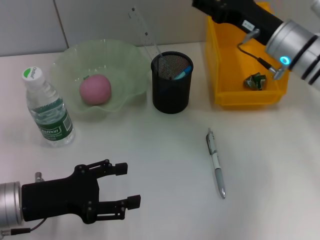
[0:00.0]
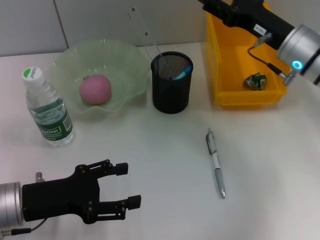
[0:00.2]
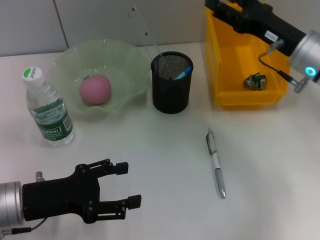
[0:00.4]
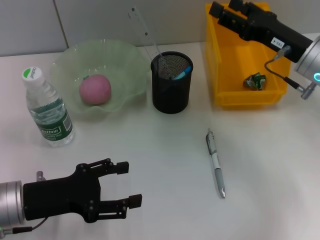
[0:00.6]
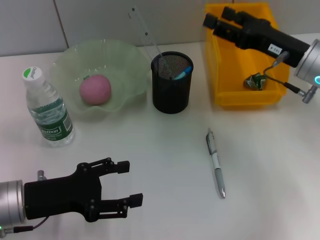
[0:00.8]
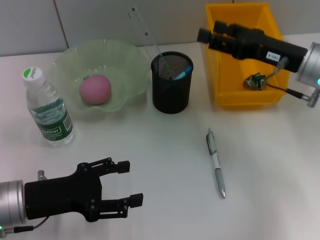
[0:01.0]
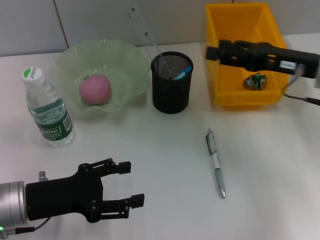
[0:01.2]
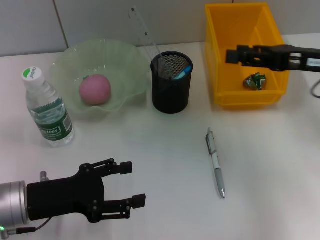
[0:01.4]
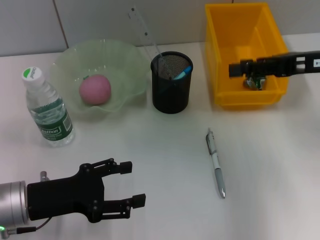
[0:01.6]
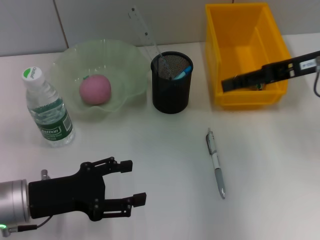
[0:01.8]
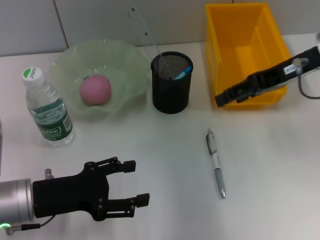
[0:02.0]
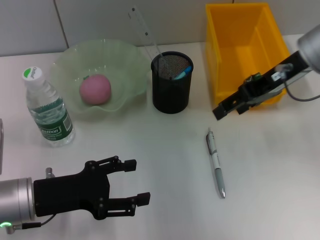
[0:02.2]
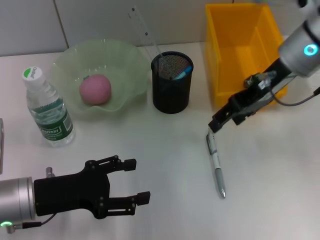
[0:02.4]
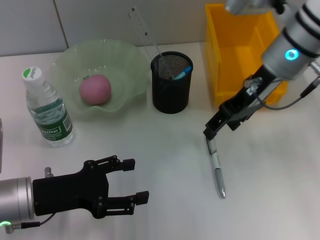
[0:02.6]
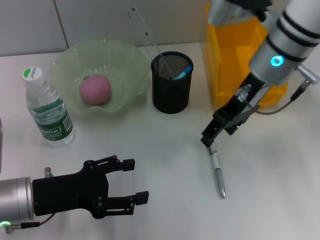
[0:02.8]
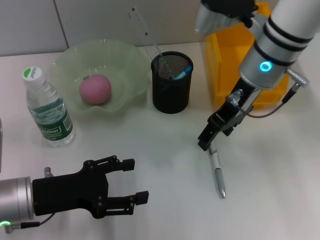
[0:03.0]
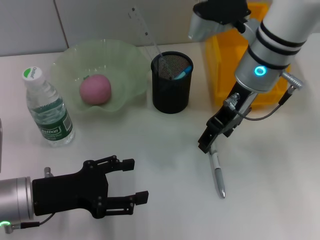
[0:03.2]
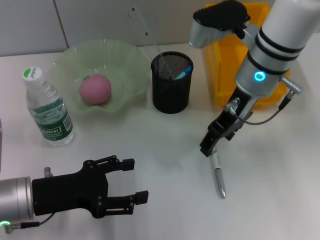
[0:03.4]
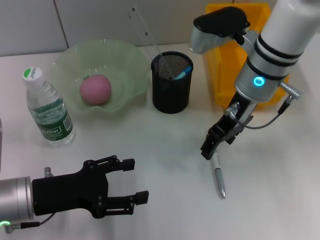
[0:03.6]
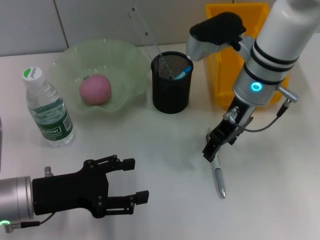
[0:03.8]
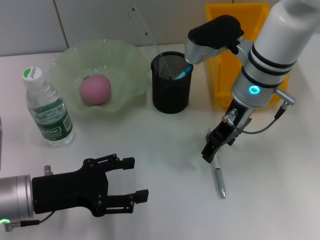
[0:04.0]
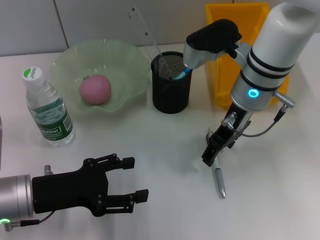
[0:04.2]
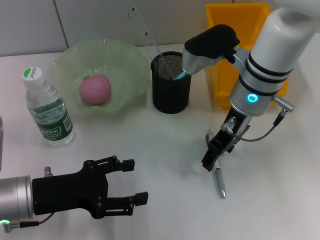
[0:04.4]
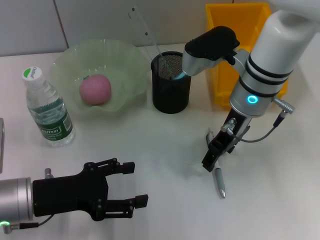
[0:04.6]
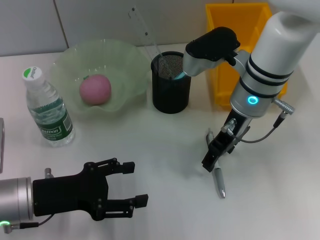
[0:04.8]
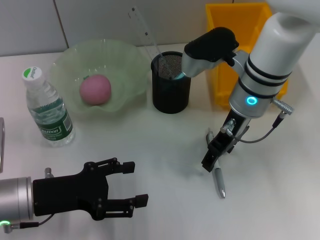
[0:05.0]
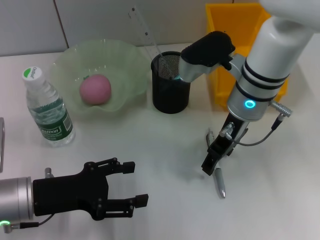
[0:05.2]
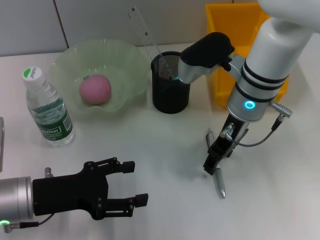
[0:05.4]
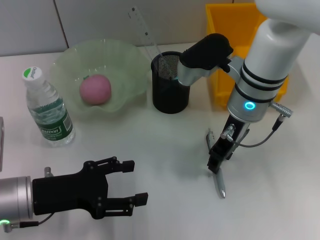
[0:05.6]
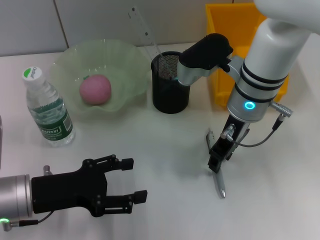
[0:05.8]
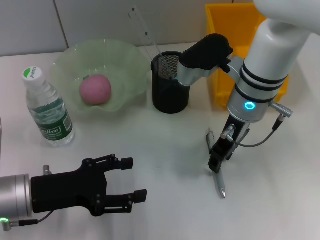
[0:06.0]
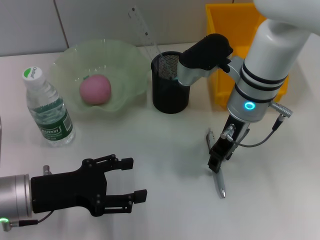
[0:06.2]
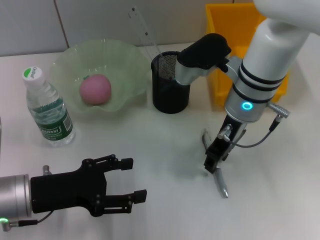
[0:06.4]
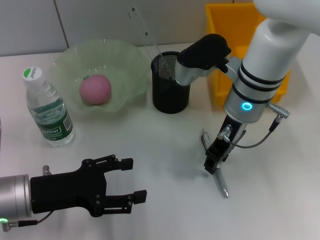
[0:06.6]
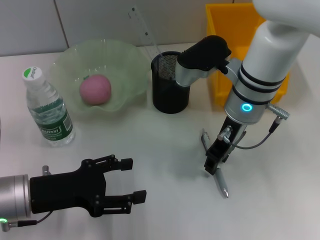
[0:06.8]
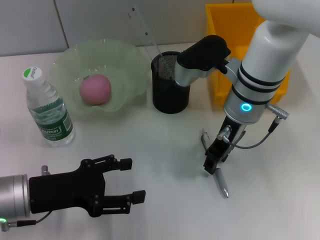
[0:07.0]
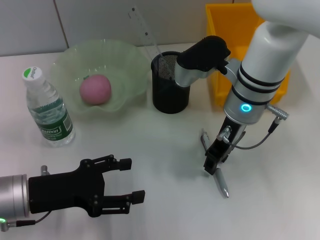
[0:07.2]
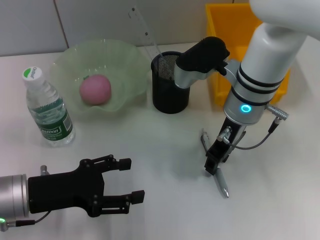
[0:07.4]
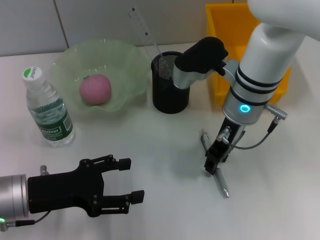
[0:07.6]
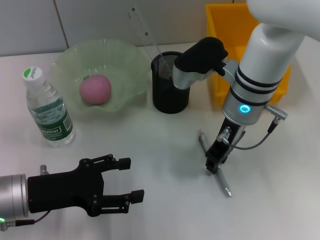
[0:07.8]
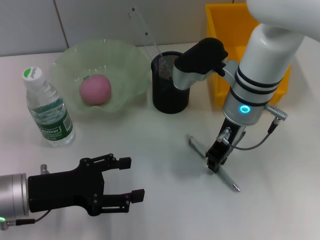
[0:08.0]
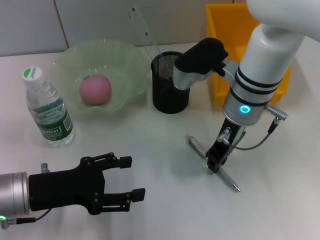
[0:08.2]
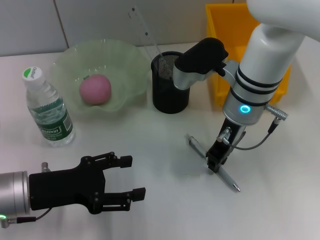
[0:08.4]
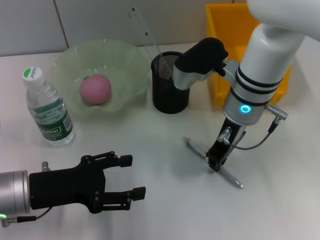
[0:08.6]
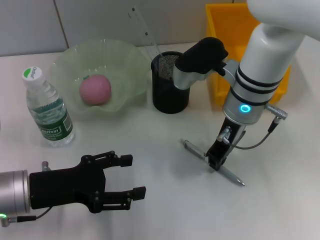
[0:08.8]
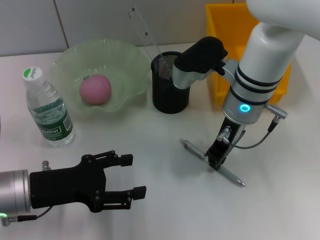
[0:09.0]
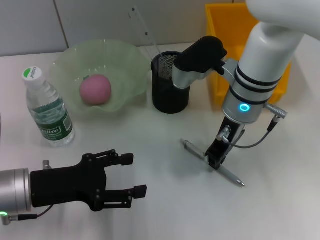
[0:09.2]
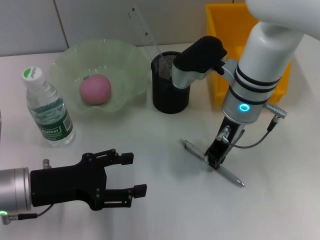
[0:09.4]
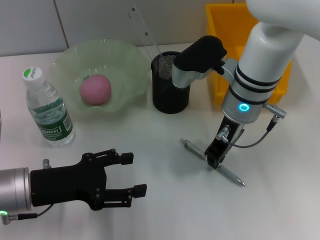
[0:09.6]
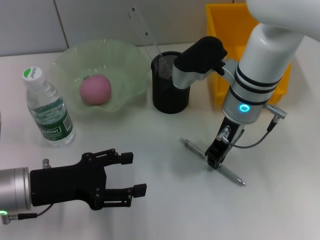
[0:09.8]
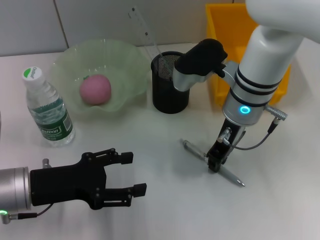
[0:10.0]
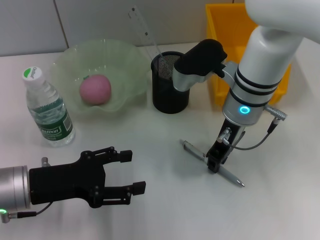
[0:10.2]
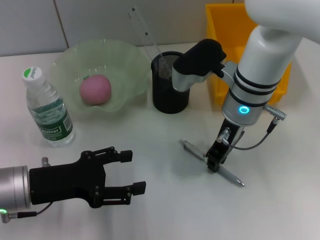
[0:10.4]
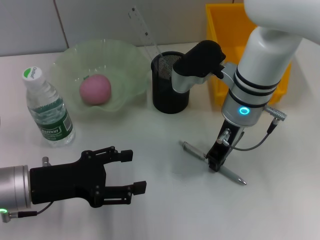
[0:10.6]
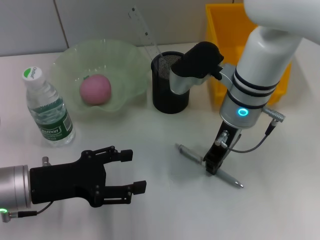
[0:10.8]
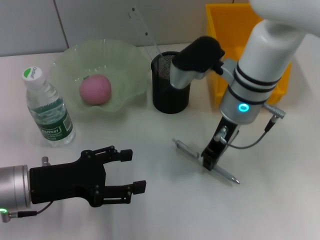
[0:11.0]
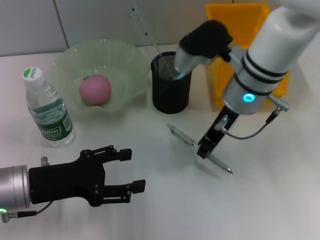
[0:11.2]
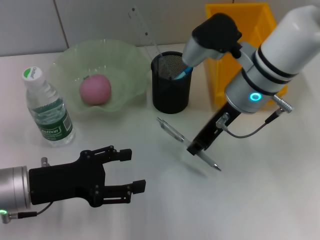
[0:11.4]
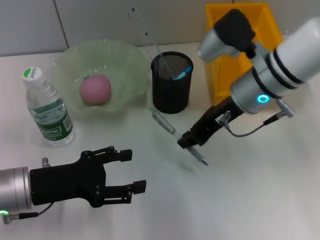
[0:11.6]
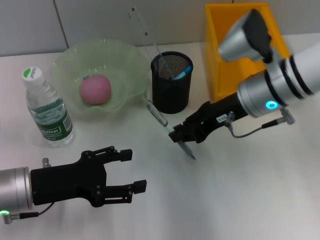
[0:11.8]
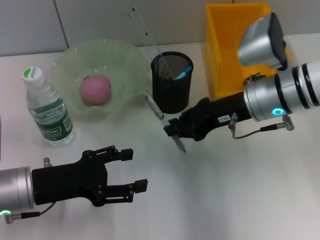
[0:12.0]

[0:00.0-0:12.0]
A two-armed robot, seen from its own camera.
Step, 0:00.0 to 0:10.6: Grab the gray spring-action pen with the right hand.
0:00.0 to 0:01.6: The right gripper is displaced to the right, upward and backward by about 10 cm.
0:01.6 to 0:03.0: The right gripper moves to the left, approximately 15 cm.
0:03.0 to 0:04.4: The grippers move only a little.
0:04.4 to 0:06.0: The right gripper closes up.
0:06.0 to 0:07.6: The two grippers keep their place.
0:07.6 to 0:09.0: The right gripper closes up.
0:09.0 to 0:10.4: Both grippers stay about where they are.
0:10.4 to 0:12.0: The right gripper moves to the right, roughly 5 cm.

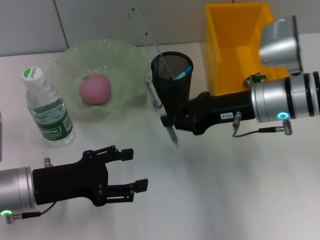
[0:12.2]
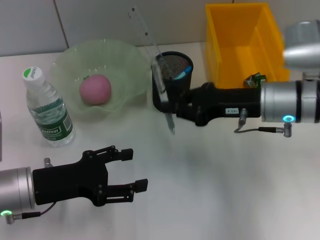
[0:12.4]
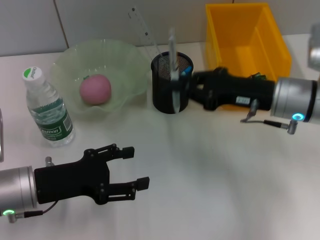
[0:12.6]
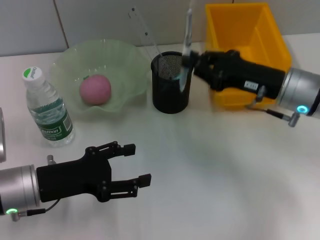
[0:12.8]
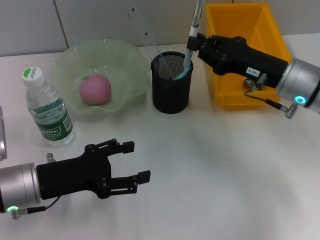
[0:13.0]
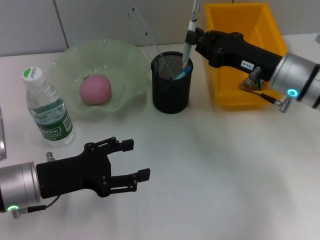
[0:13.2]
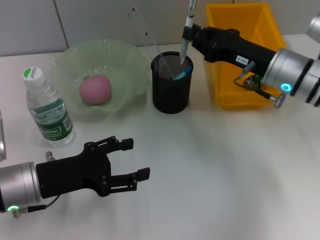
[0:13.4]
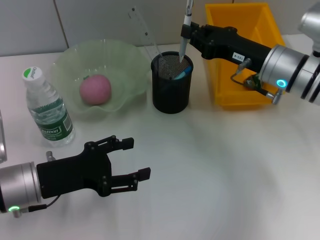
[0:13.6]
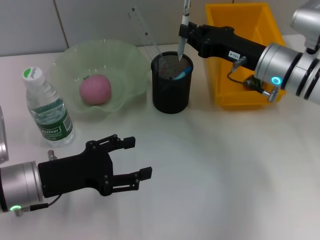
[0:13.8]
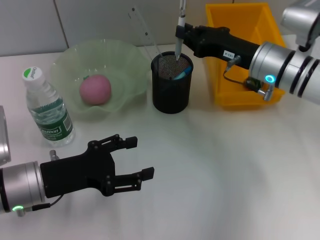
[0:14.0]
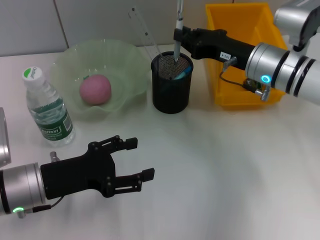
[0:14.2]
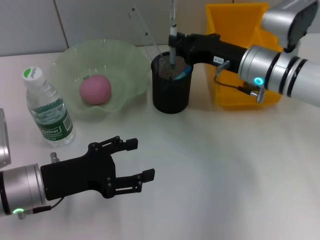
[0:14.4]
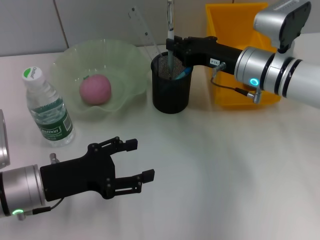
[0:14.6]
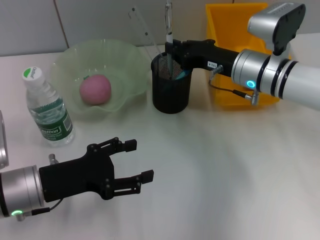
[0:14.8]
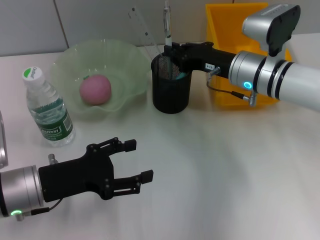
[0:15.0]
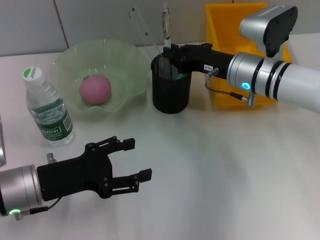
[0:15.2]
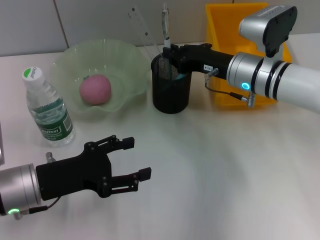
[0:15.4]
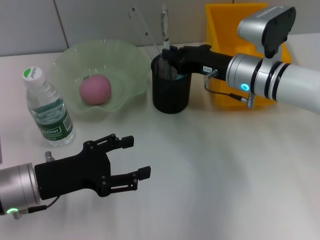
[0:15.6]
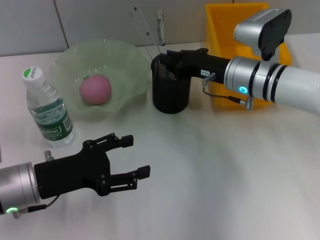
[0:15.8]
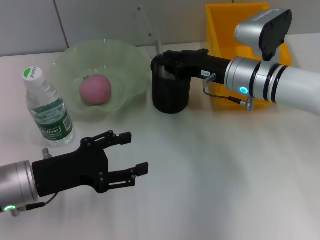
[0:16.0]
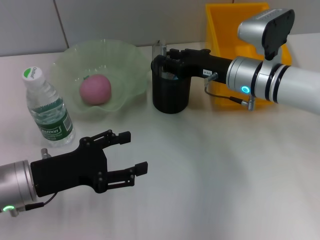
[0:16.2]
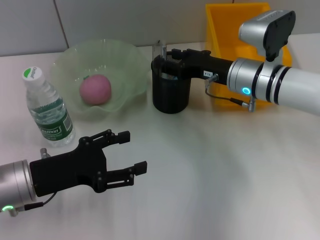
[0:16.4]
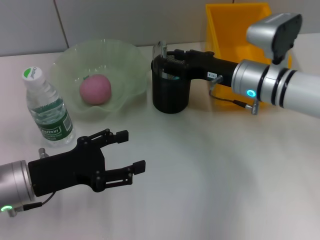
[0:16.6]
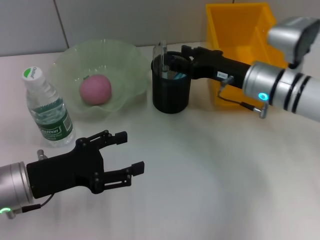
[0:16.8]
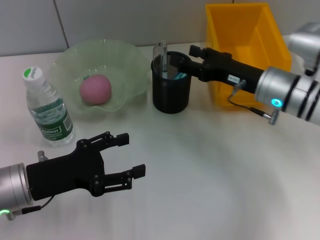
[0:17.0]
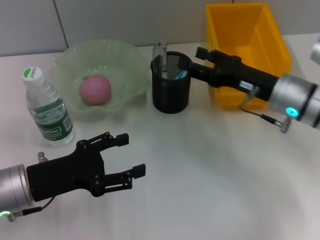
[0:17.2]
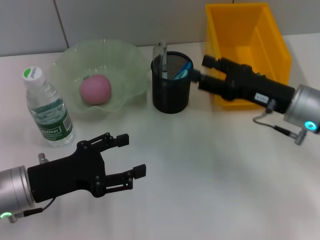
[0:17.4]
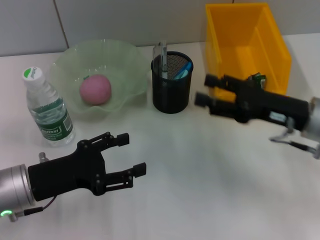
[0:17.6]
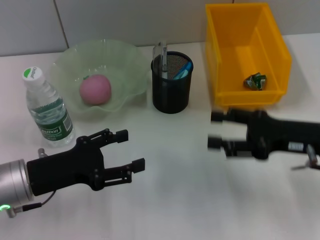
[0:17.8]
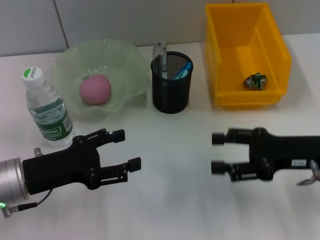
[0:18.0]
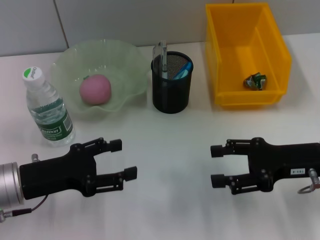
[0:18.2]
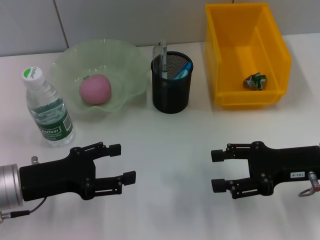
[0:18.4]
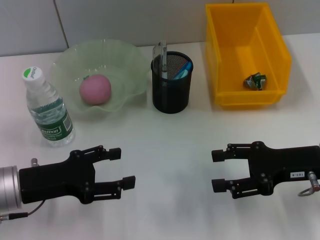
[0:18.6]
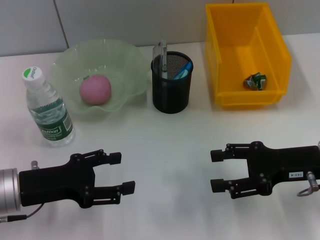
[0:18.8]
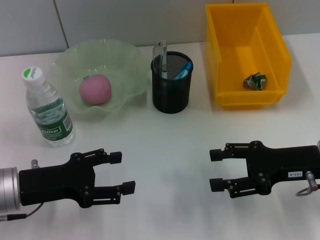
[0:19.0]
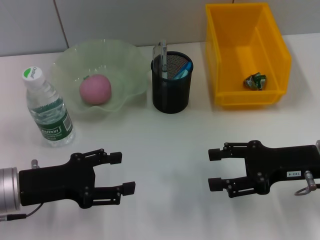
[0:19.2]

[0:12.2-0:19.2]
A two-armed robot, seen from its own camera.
Step, 0:12.2 to 0:16.2: Place the gray spring-action pen into the pen holder with the right hand.
0:13.6 to 0:15.0: There are only small adjustments of the grippers.
0:15.0 to 0:16.4: Neither gripper changes place.
0:16.4 to 0:17.8: The right gripper is displaced backward and to the right by some 15 cm, and opens its fingers.
0:17.8 to 0:19.2: There are only small adjustments of the grippers.

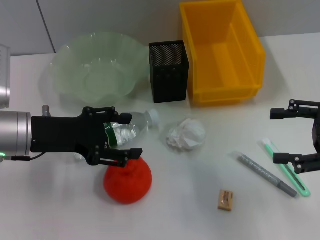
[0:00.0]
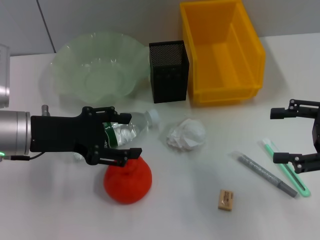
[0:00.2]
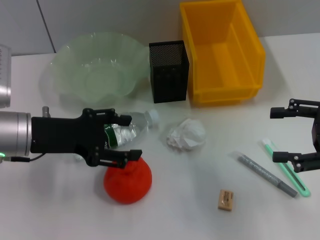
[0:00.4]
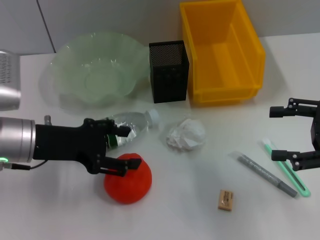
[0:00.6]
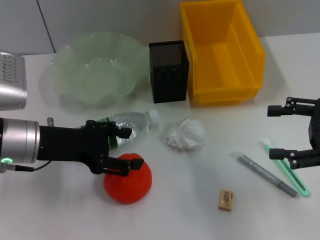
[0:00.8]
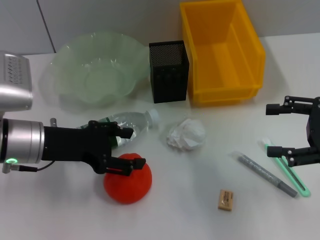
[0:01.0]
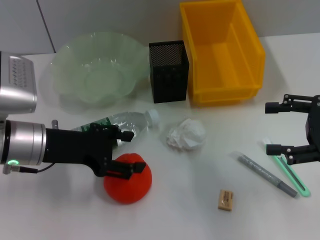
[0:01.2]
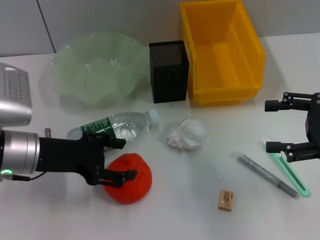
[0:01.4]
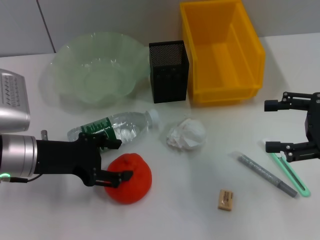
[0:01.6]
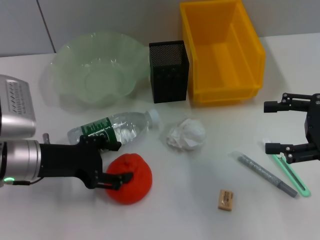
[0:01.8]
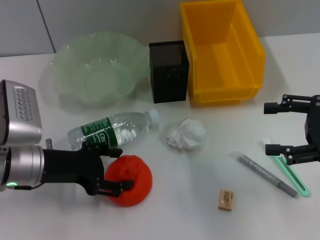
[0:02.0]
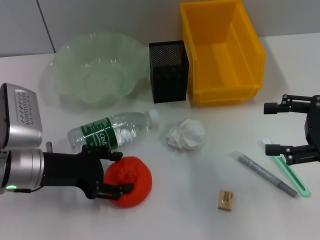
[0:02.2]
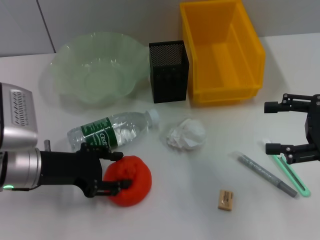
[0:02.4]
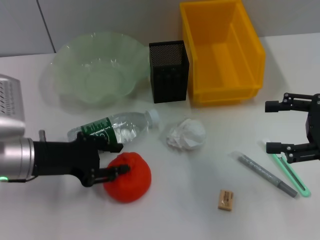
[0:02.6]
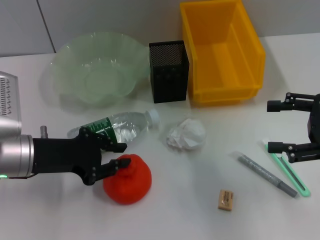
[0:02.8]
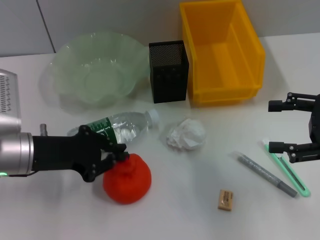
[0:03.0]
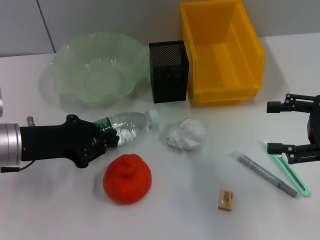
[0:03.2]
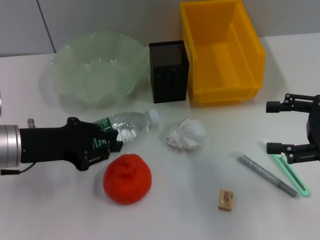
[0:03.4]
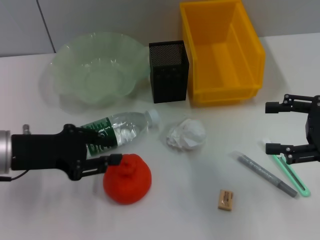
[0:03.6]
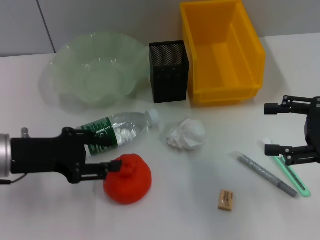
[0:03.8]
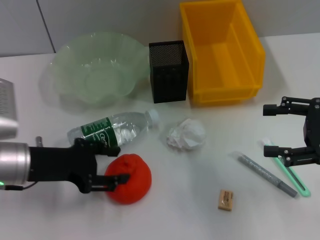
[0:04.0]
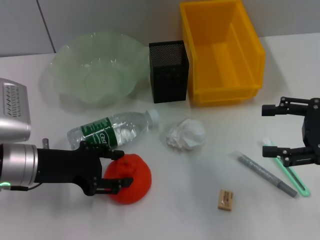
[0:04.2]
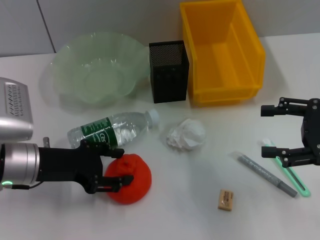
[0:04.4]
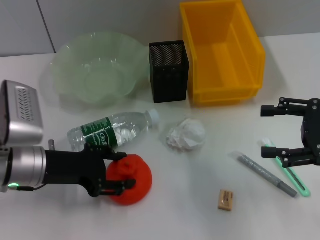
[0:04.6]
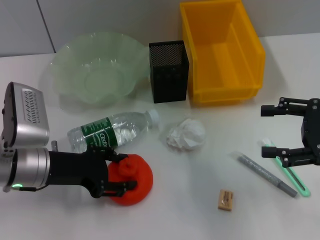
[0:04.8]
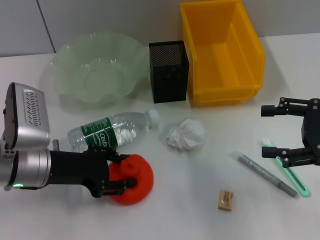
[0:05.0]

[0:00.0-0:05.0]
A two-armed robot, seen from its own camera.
0:00.0 to 0:01.6: There are only small adjustments of the grippers.
0:01.6 to 0:03.4: The left gripper closes its fingers.
0:03.4 to 0:05.0: The left gripper opens up.
